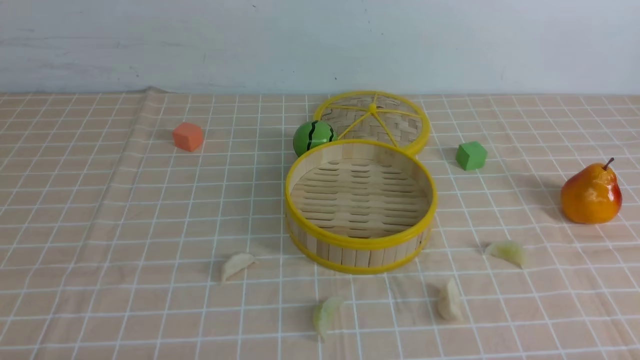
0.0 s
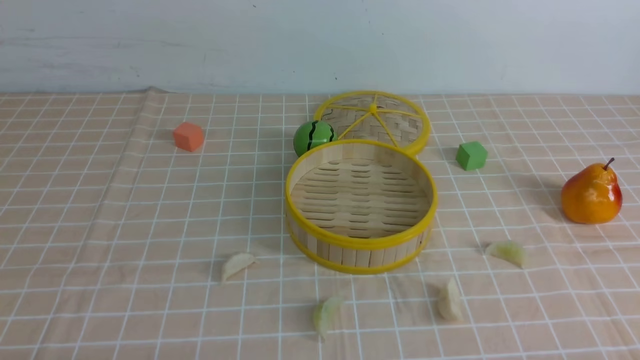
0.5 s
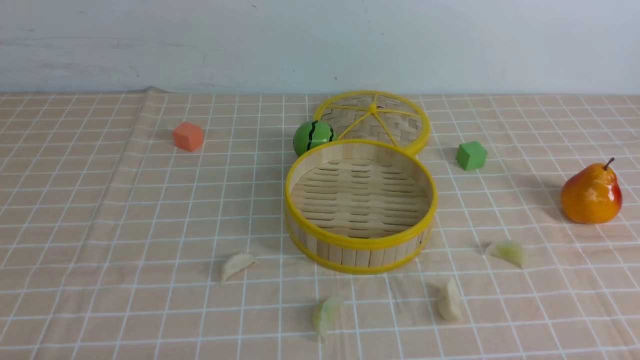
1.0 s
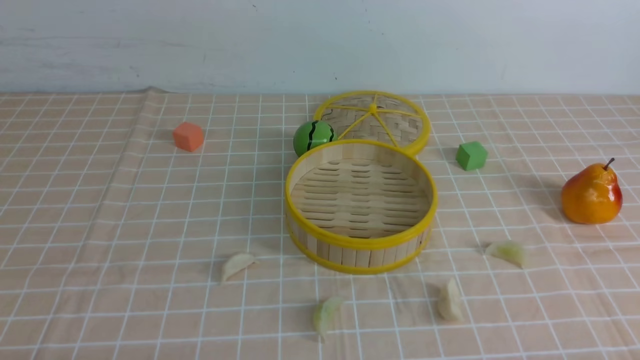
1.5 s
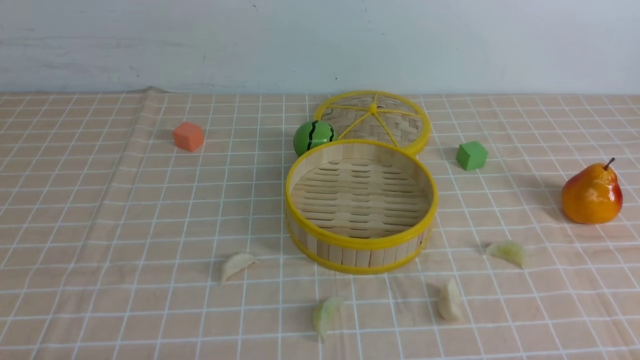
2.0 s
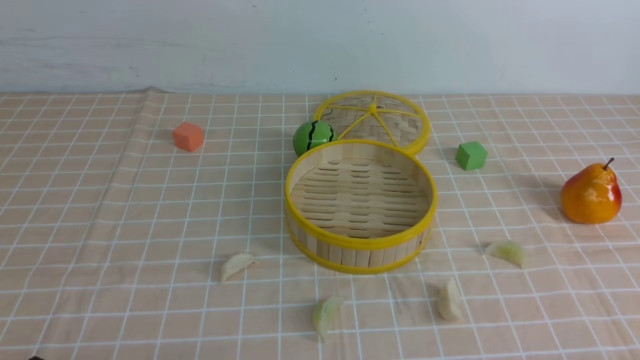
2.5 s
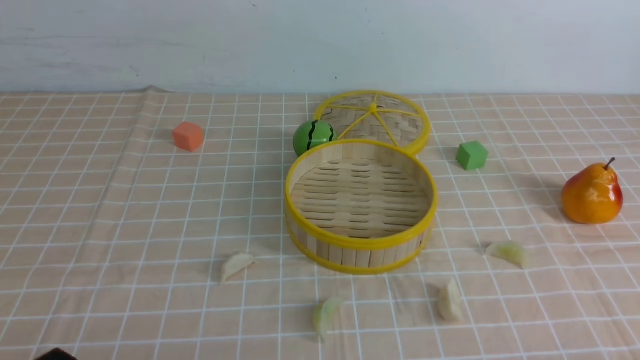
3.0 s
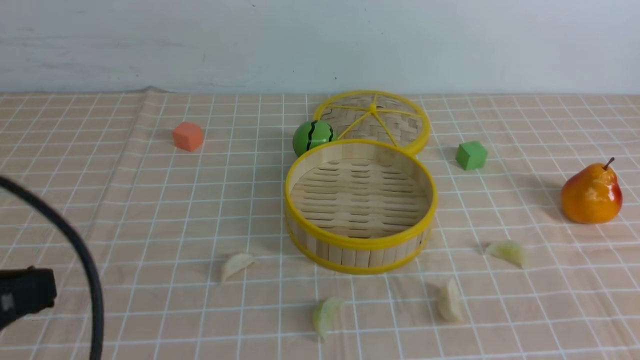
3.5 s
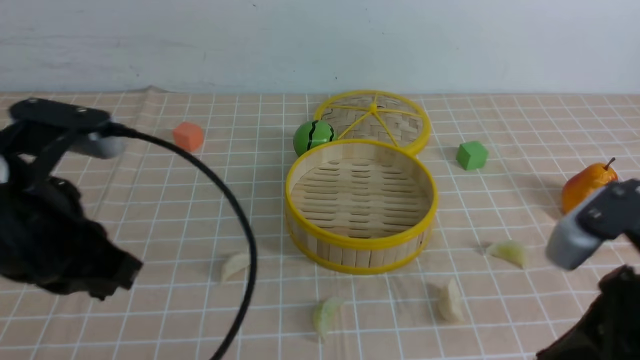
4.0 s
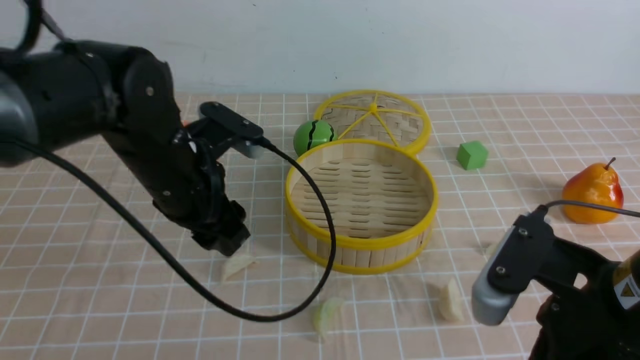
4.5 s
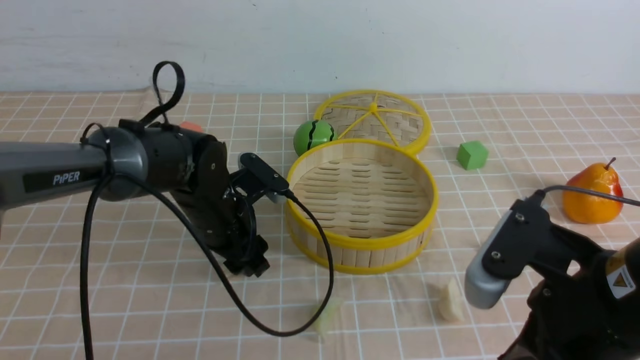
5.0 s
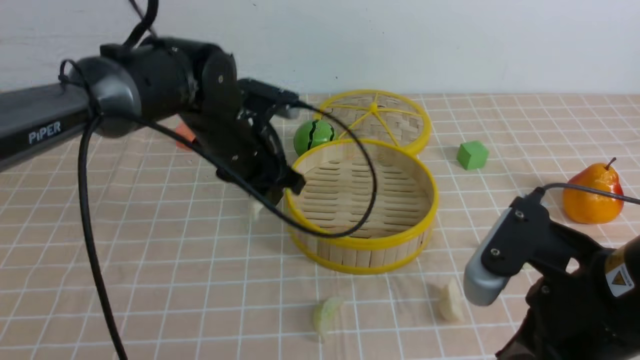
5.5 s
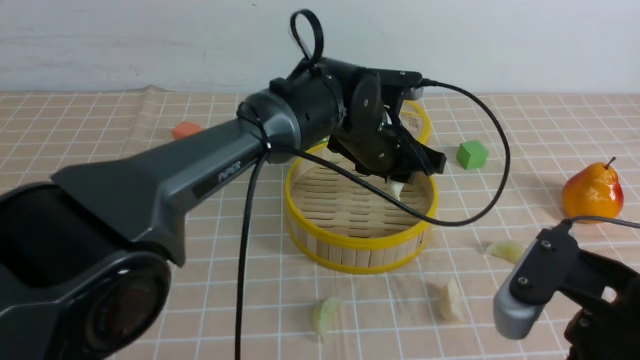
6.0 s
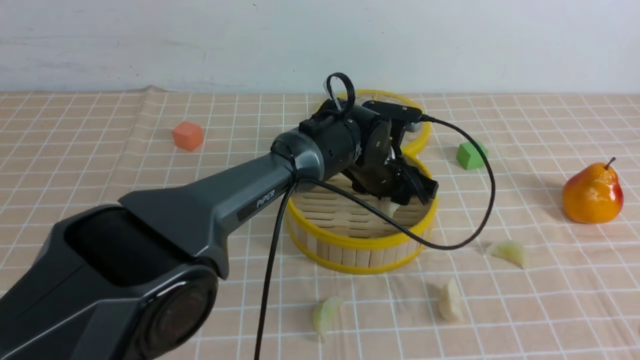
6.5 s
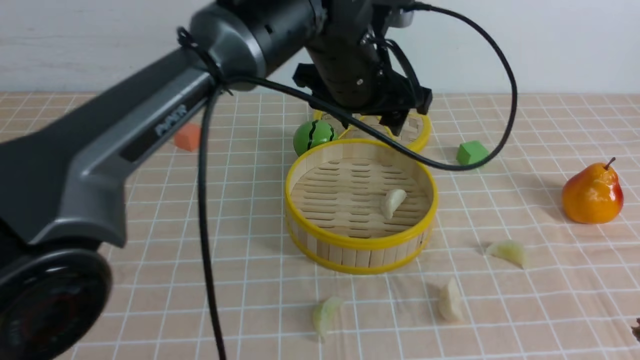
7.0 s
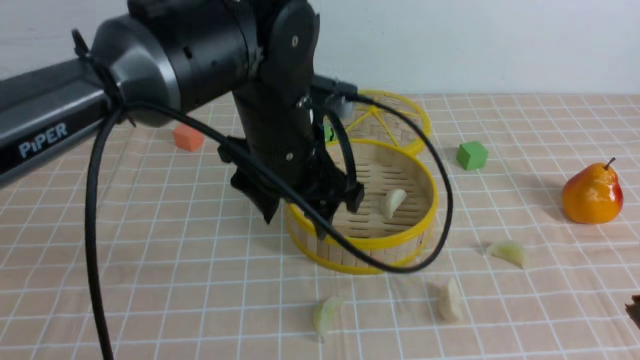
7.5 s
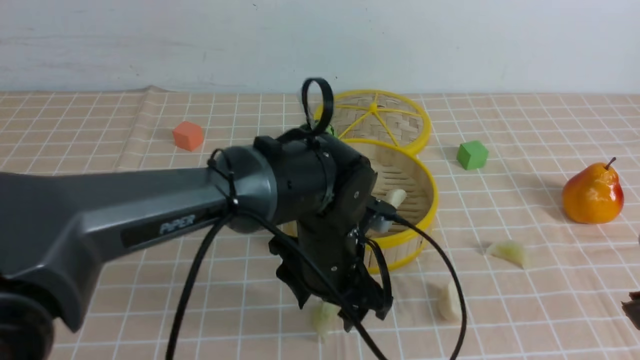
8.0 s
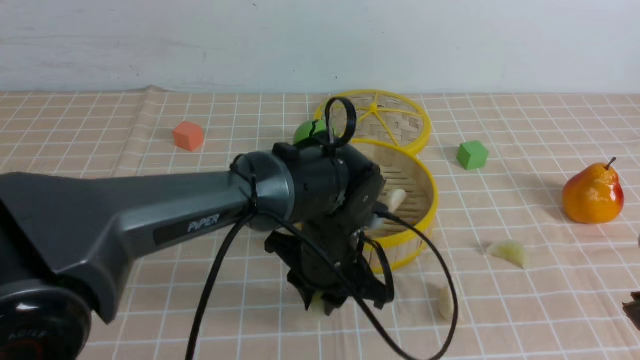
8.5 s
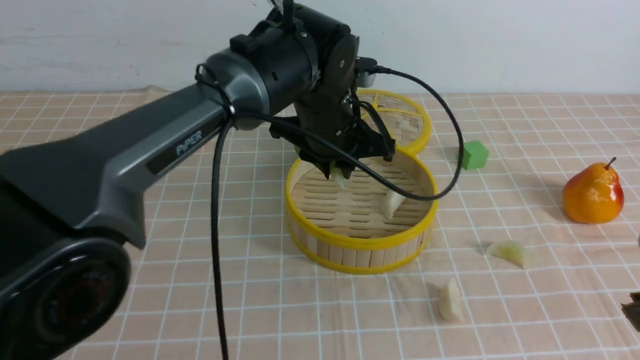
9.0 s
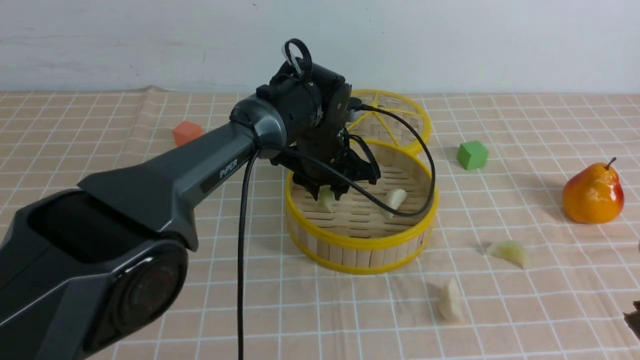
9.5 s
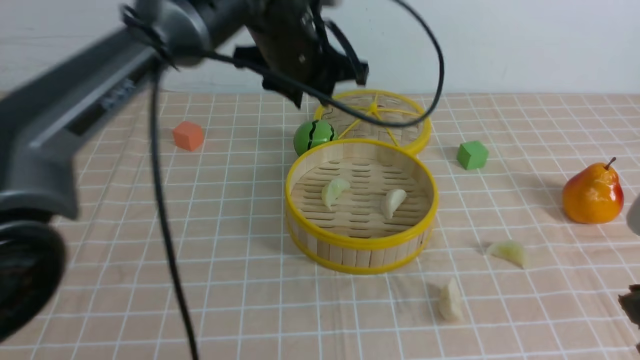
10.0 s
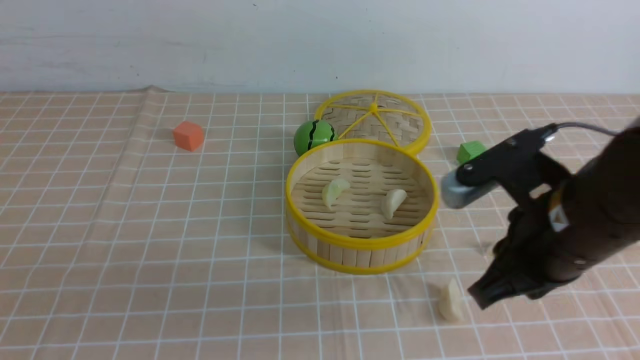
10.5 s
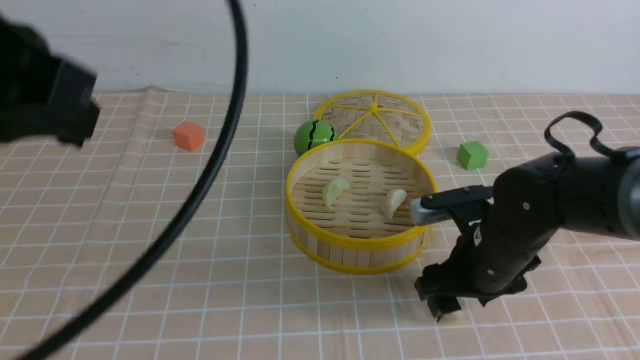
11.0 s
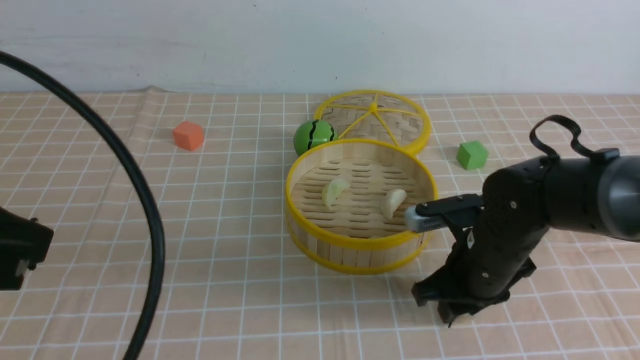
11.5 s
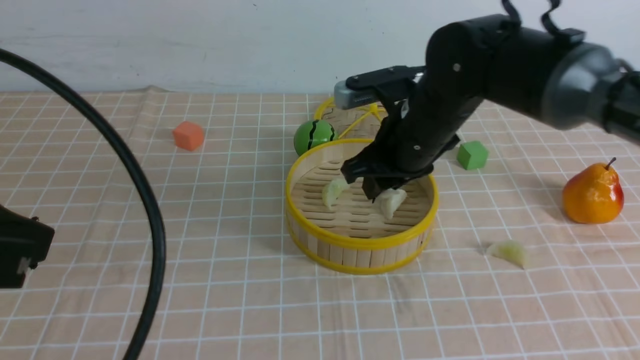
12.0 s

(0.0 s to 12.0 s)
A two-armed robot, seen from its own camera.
Task of the whole recording: put the dumplings into the steamer on the table with the brown tablecloth.
Step, 0.0 s - 5.0 s: use the left arm to grab a dumpling.
Step, 5.5 s - 6.5 s: use the left arm to put the dumpling into the steamer.
Step, 7.0 s - 8.0 s: use the left arm to grab a dumpling.
Step, 8.5 s - 9.5 s: use the left arm to put the dumpling into the steamer.
Step, 10.0 s - 11.0 s: use the right arm to grab a dumpling.
0.0 s - 2.0 s: Neither gripper changes place.
2.0 s - 4.0 s: The right gripper shifts some 20 cm upward, forward and to the left, and closes its fingers, while the left gripper moves upward, forward and to the right, approximately 25 cm, and closes its fingers.
4.0 s - 6.0 s: The left gripper travels to the right and forward by about 30 cm, and opens its fingers.
6.0 s - 8.0 s: The right gripper moves some 5 cm. The left gripper moves up and down over about 15 cm, changing direction 2 times, and opens.
8.0 s - 10.0 s: The left gripper goes up and down, some 20 cm each way, reversing 2 times, and closes up.
10.0 s - 12.0 s: The left gripper moves backward and to the left, about 35 cm, and closes. Meanwhile the right gripper moves forward and to the left, approximately 30 cm, and opens, then closes again.

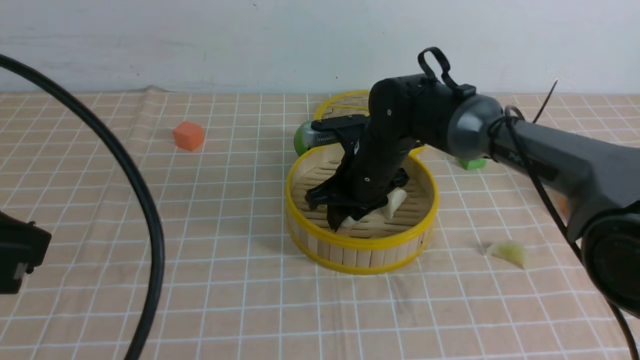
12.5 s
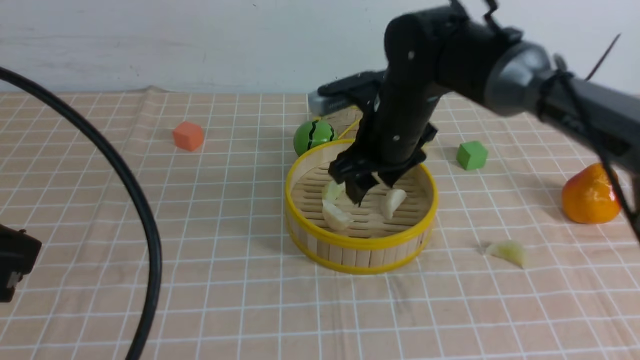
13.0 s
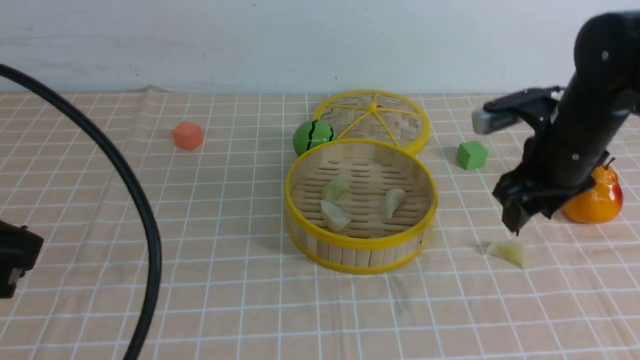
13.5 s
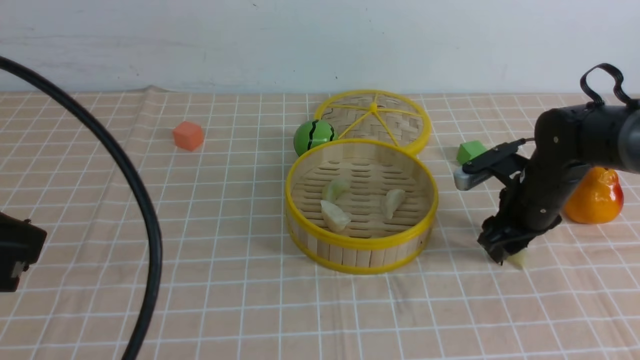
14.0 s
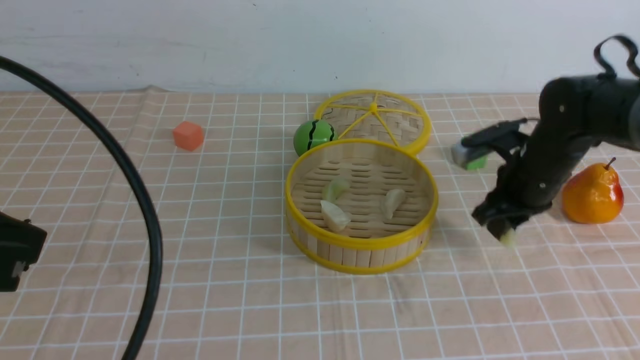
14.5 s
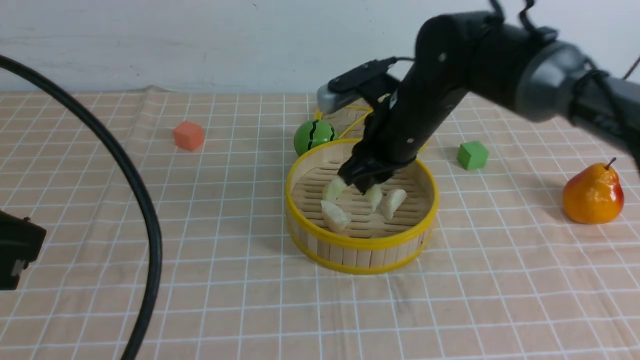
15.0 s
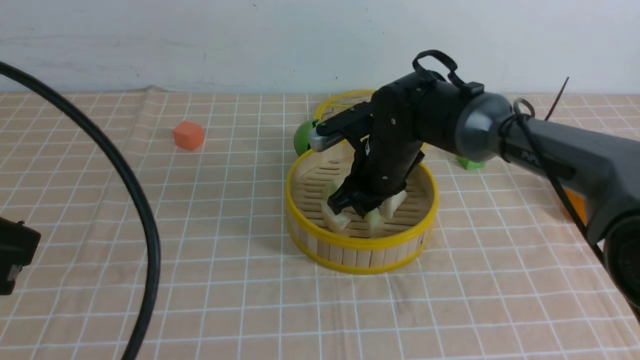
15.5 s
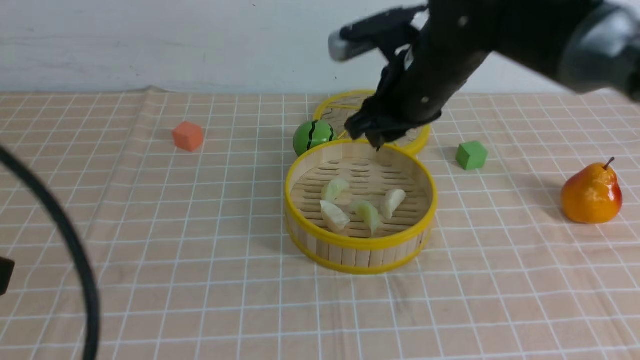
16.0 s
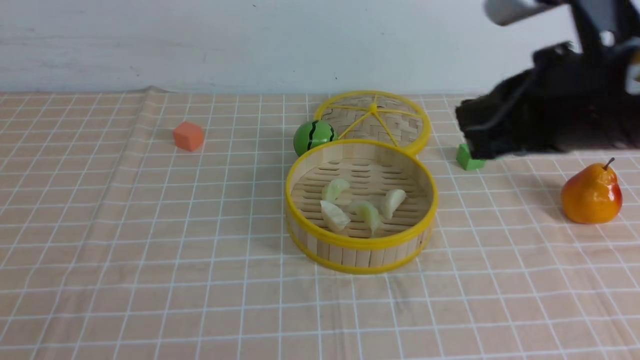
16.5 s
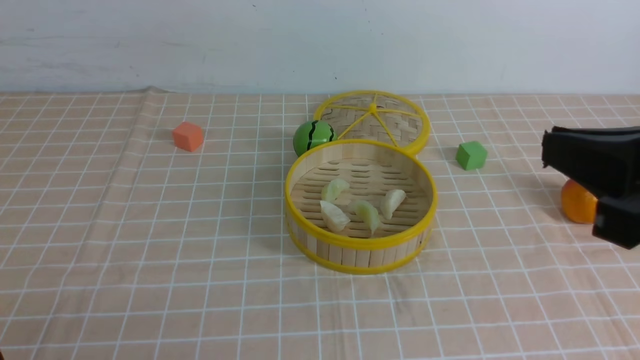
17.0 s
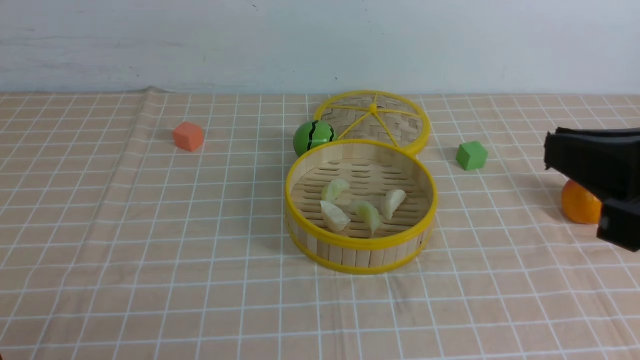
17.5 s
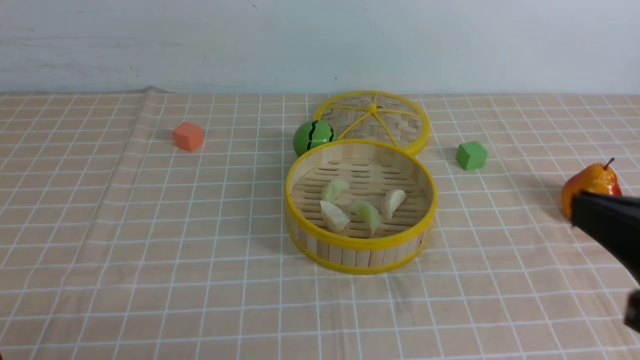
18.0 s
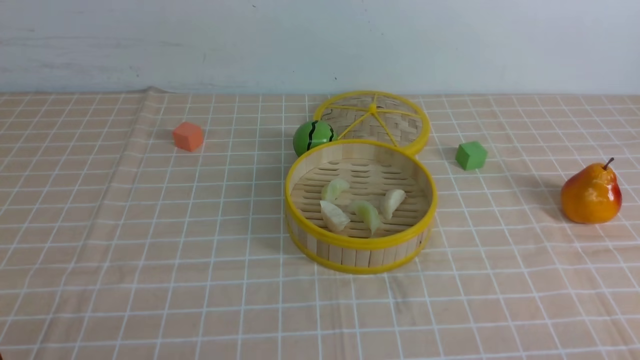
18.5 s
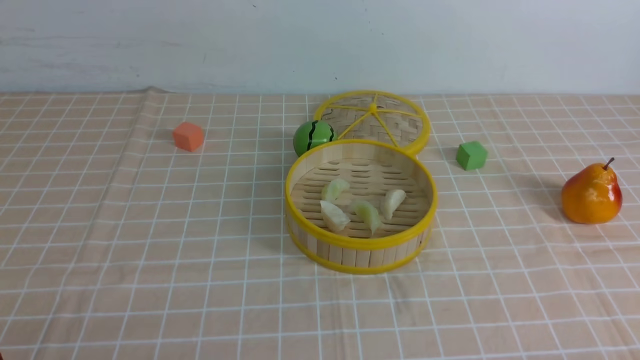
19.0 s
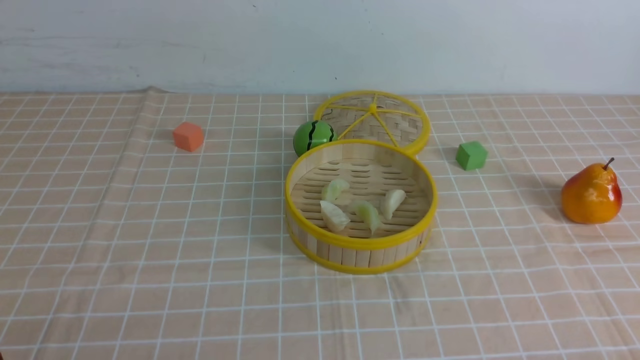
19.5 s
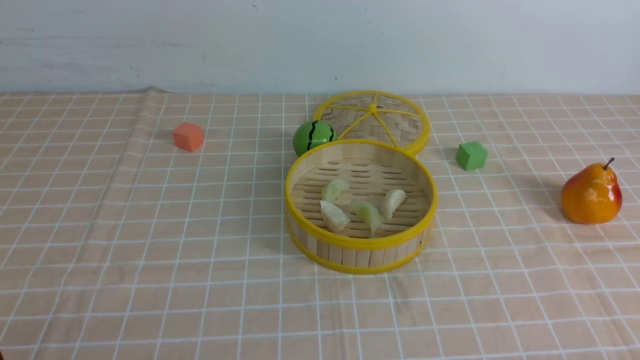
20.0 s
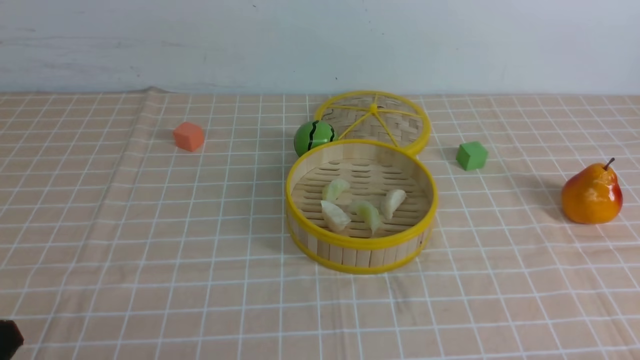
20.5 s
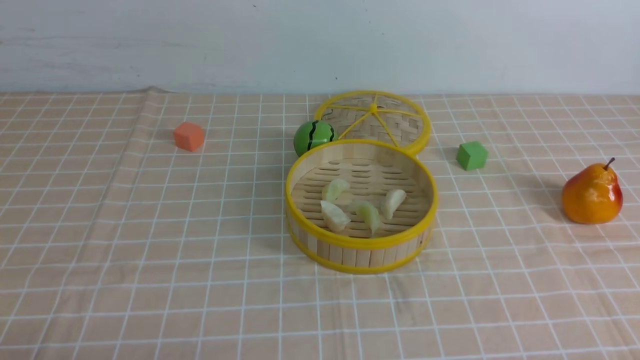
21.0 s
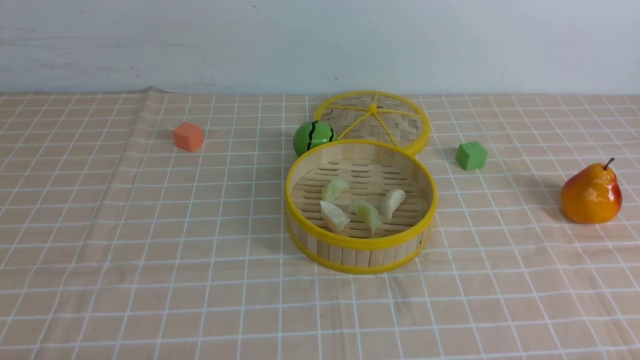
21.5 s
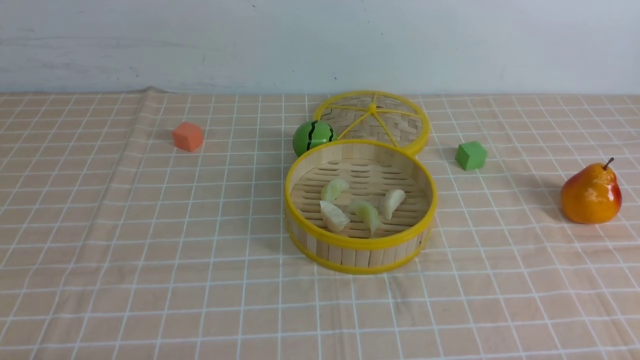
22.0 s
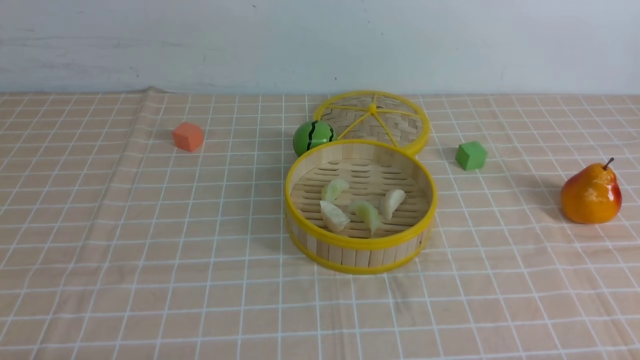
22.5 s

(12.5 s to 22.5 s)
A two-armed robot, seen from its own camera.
Task of the whole recording: put the dumplings into the steamer on the table with the brown tablecloth.
Step, 13.0 s - 14.0 s: use the right arm to grab a dumpling.
Step, 14.5 s - 16.0 s: use the right arm to put the dumpling into the steamer.
12.5 s - 14.5 s: The right gripper heads to the right, covering approximately 15 cm.
14.5 s - 16.5 s: The left gripper is displaced downward, backward and to the left by some 15 cm. Meanwhile the right gripper is displaced backward and upward by some 25 cm.
16.5 s - 18.5 s: The right gripper heads downward, backward and to the right, covering some 30 cm.
